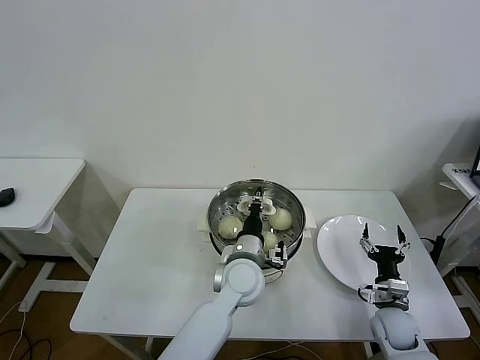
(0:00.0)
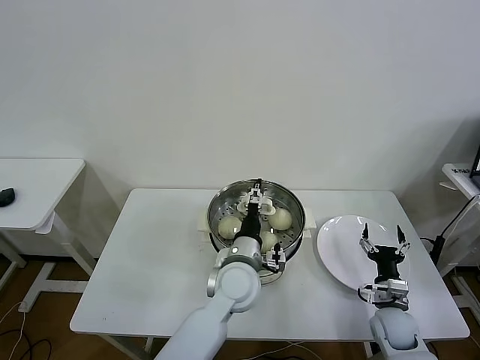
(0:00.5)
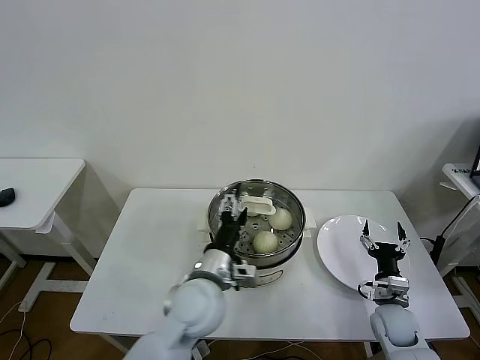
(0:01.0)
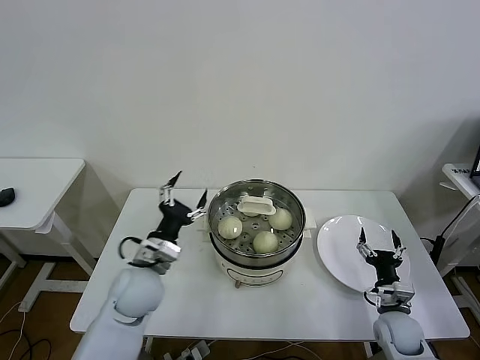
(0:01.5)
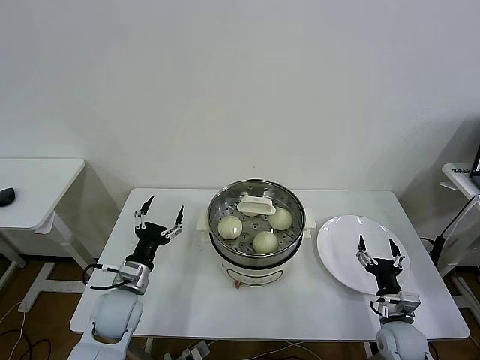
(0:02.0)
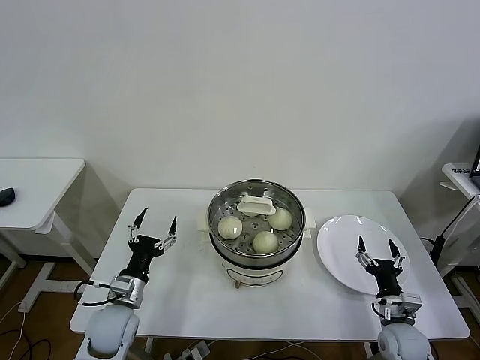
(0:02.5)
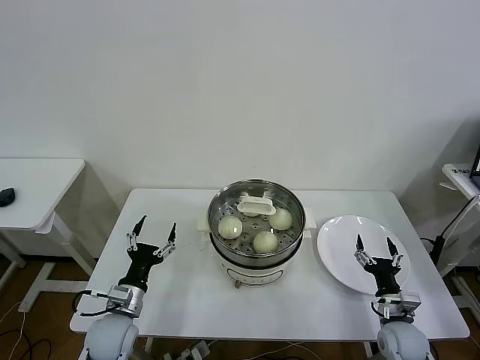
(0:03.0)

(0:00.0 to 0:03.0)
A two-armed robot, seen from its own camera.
Task of the whole recording: take steamed baozi put them in steamer then cover it.
0:00.0 - 0:01.5: The left gripper goes some 20 cm to the left, and opens up.
0:01.5 - 0:03.0: The left gripper goes approximately 15 cm downward, to the left and backward.

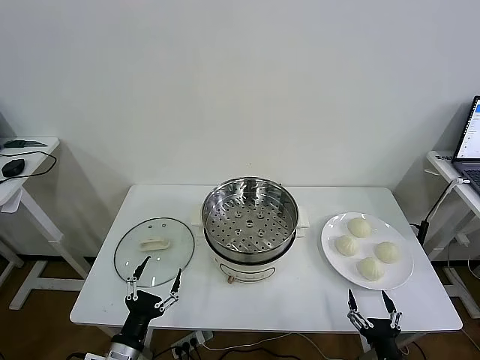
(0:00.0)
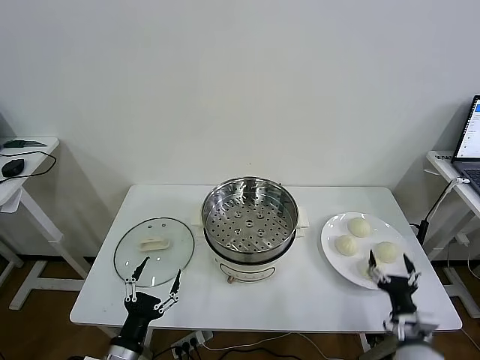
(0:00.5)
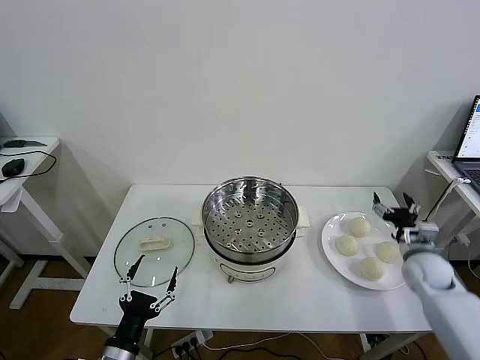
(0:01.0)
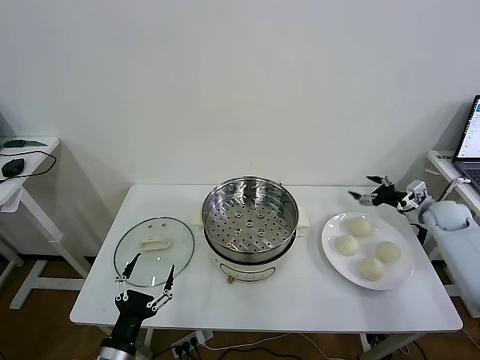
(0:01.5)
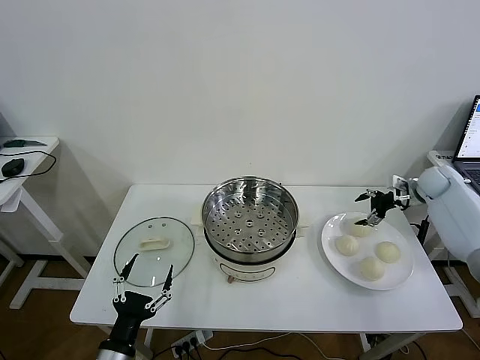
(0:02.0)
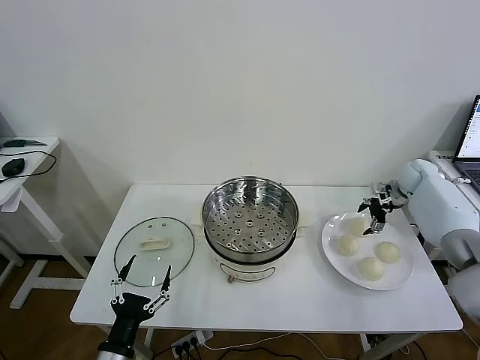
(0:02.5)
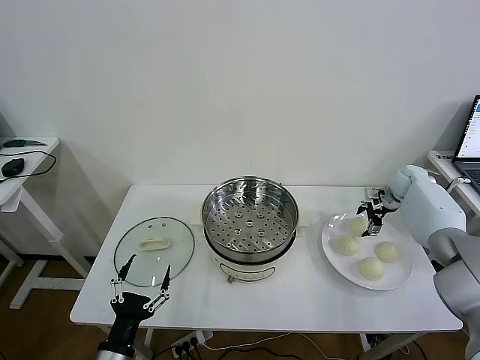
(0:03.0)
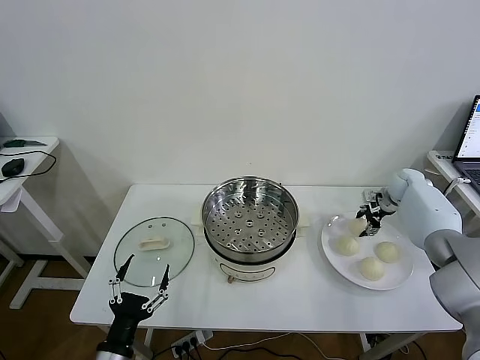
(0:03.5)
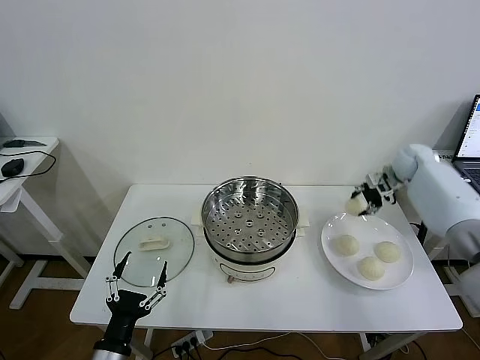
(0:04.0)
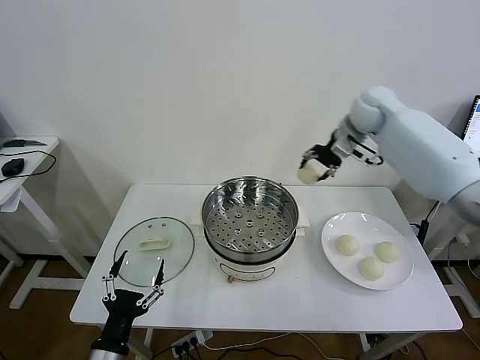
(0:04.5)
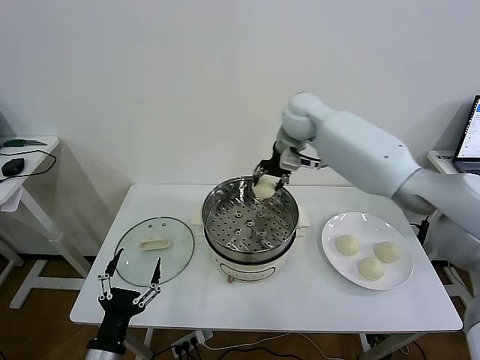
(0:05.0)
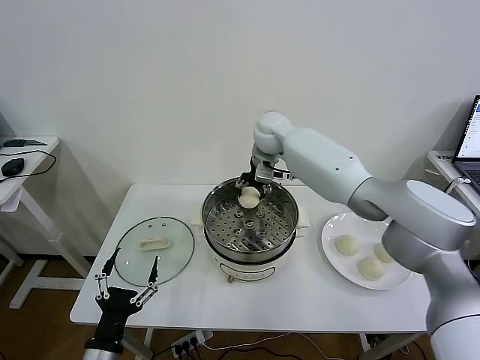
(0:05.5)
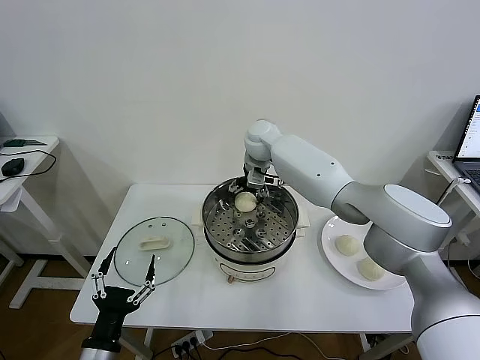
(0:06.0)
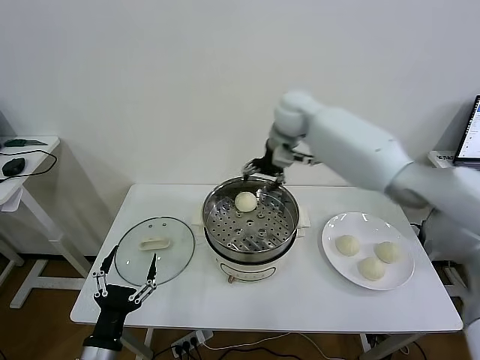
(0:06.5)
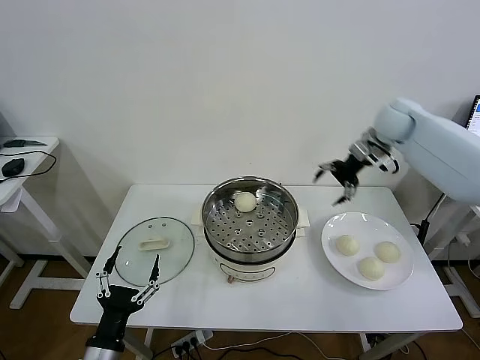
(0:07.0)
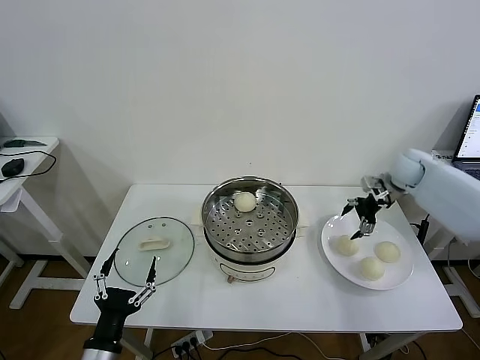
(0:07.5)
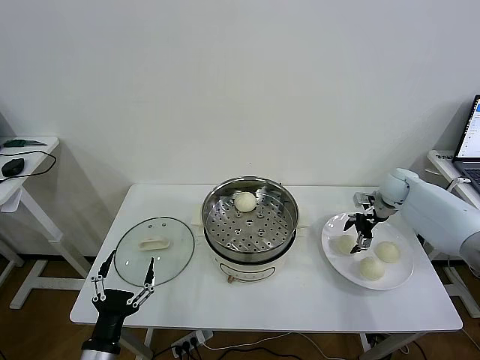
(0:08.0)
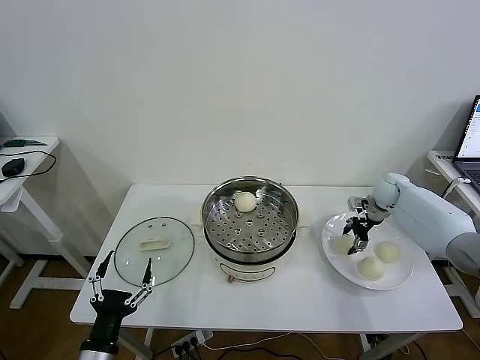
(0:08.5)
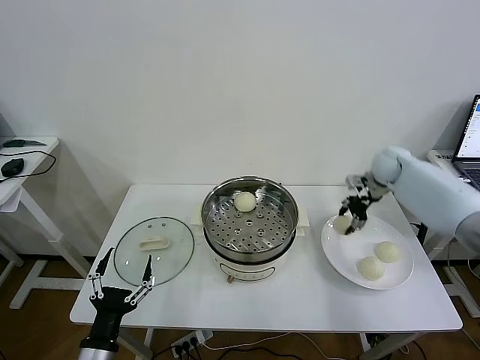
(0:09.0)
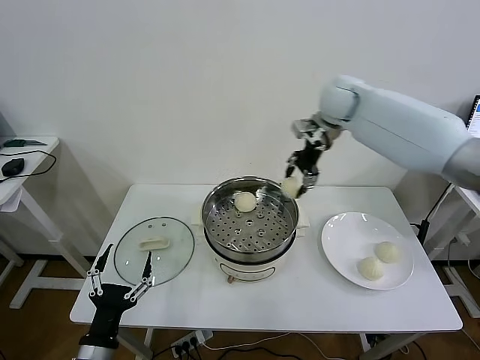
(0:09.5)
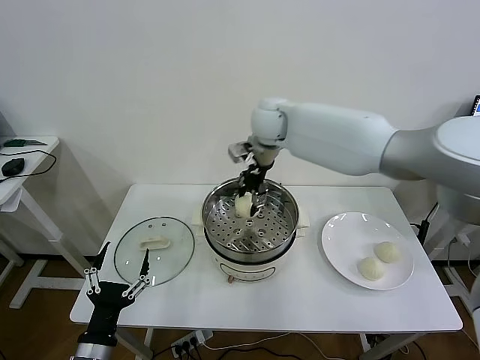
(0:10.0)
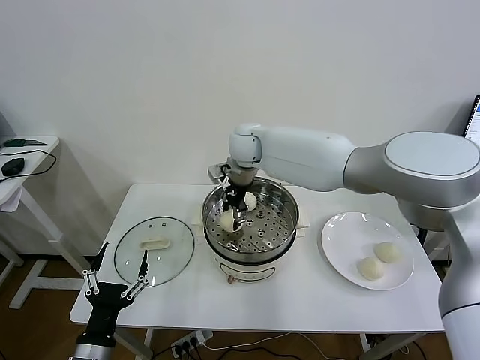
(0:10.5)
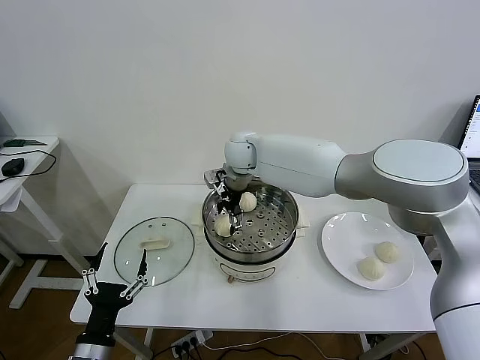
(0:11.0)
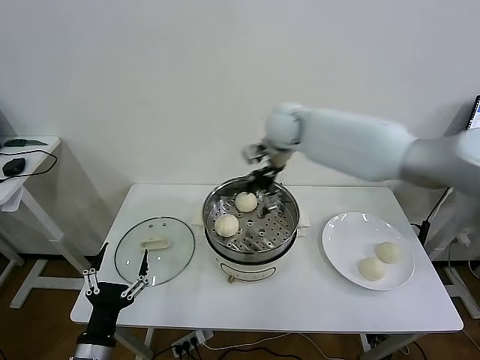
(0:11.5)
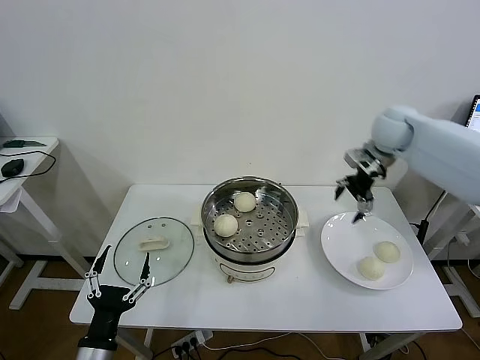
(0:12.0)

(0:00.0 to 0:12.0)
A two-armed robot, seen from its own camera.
Task of the whole recording: take steamed baozi put them in steamer then cover it.
Step, 0:00.0 - 0:03.5: Grasp the baozi in the plate with right gripper.
Step, 0:04.0 - 0:05.5: Place the baozi on the steamer with right gripper.
Step, 0:06.5 - 0:08.5: Grasp the baozi in the plate with right gripper.
Step, 0:09.0 - 0:11.0: Place the baozi on the steamer with right gripper.
0:02.0 - 0:04.0: The right gripper moves to the left, some 5 cm, and closes.
0:04.0 - 0:06.0: The right gripper goes some 40 cm to the left, and opens its fingers.
0:06.0 - 0:08.0: The right gripper moves to the right, approximately 35 cm.
0:08.0 - 0:10.0: The right gripper goes about 40 cm to the left and upward, and closes.
0:10.0 - 0:12.0: The right gripper shifts roughly 25 cm to the right, and opens its fingers.

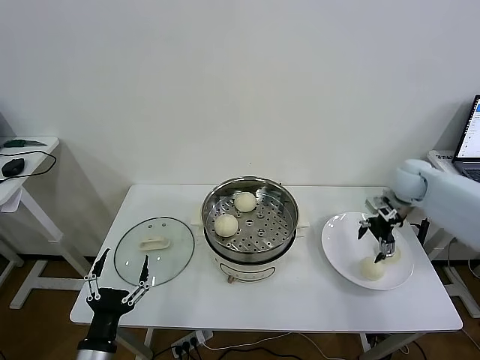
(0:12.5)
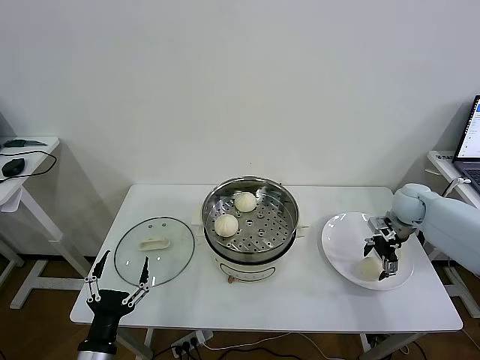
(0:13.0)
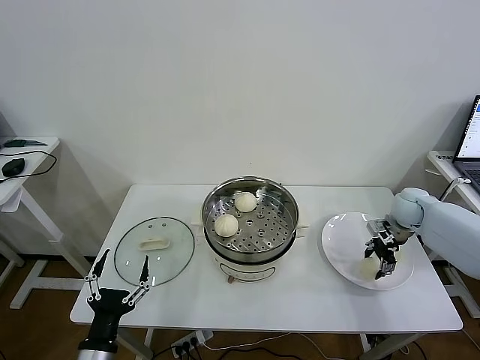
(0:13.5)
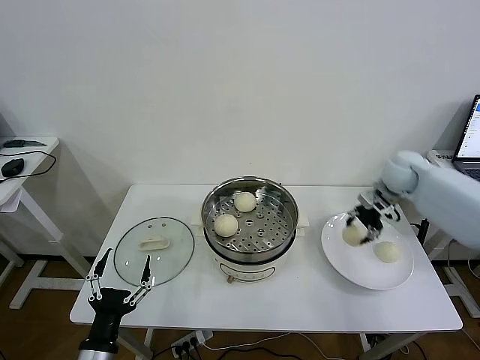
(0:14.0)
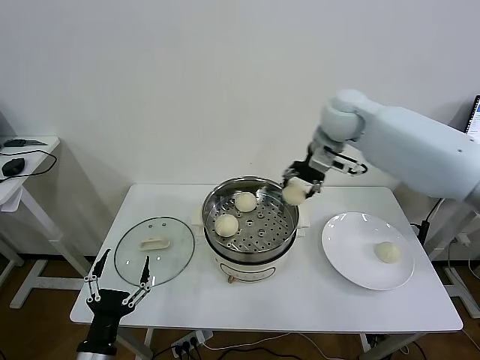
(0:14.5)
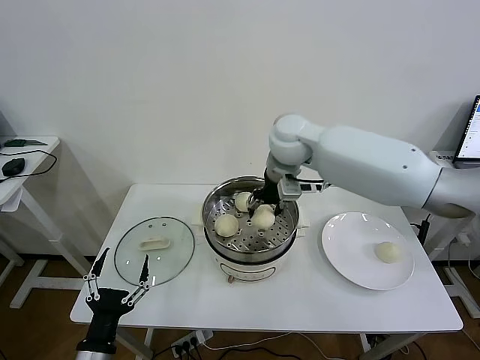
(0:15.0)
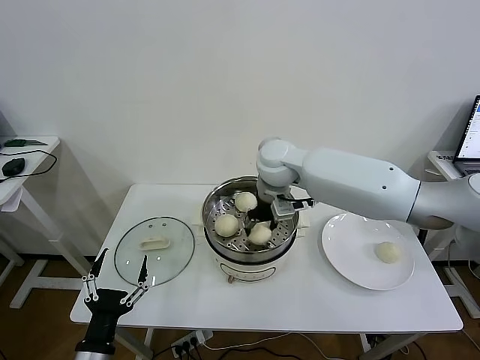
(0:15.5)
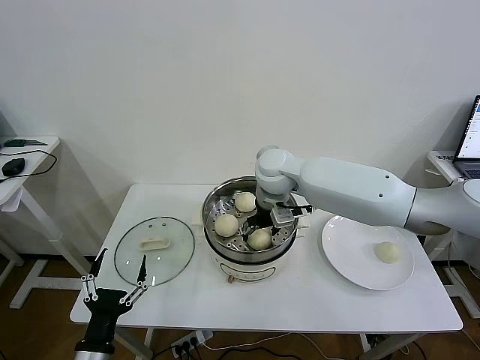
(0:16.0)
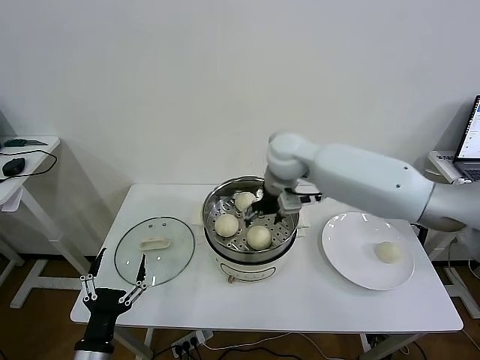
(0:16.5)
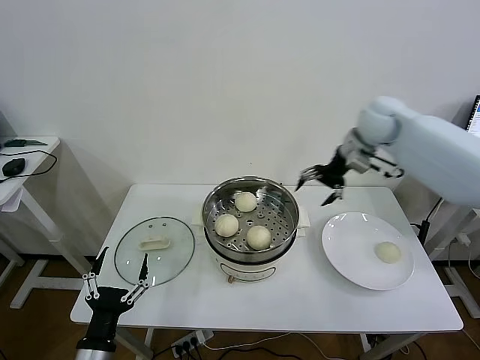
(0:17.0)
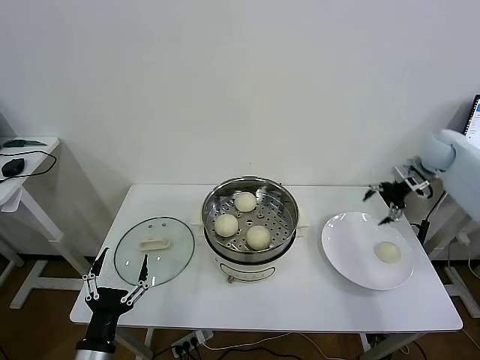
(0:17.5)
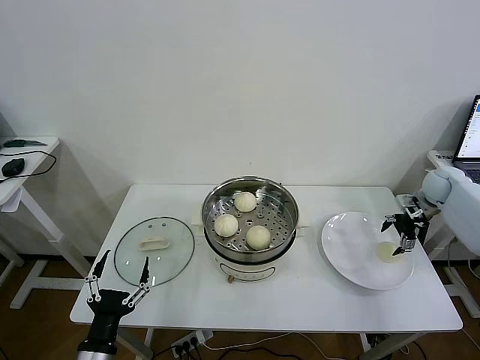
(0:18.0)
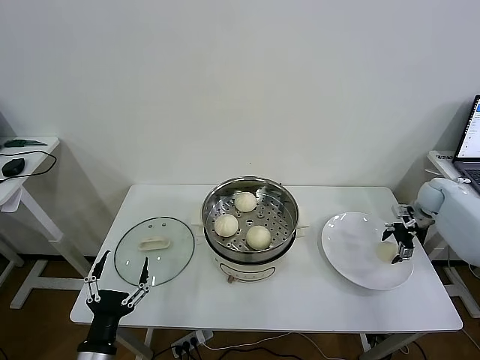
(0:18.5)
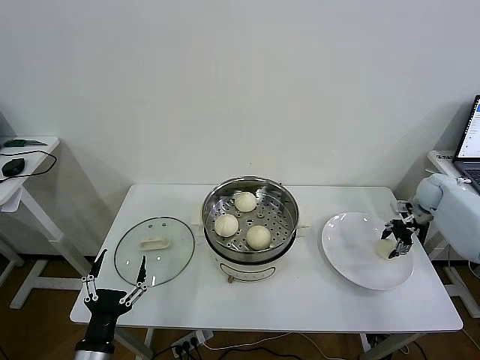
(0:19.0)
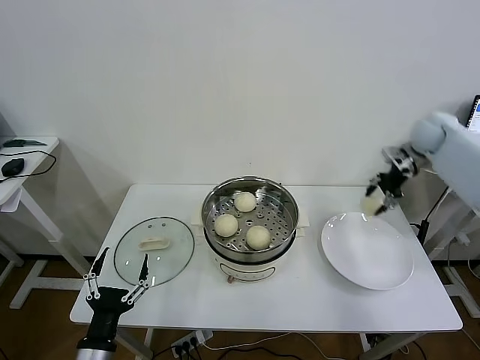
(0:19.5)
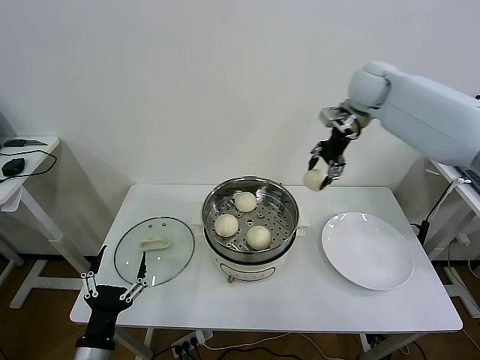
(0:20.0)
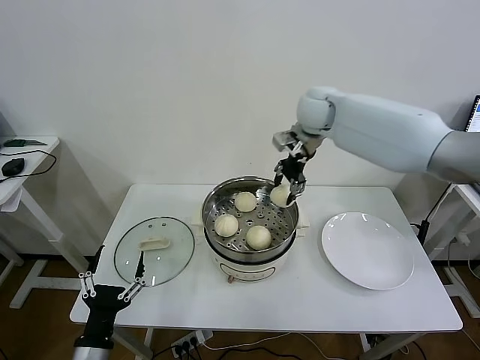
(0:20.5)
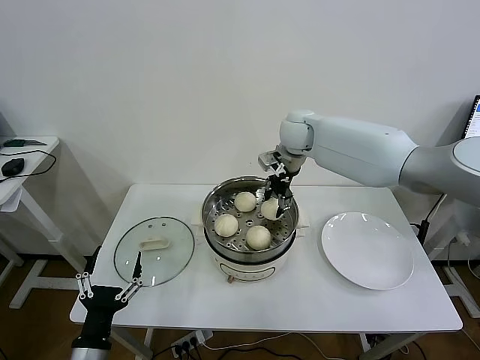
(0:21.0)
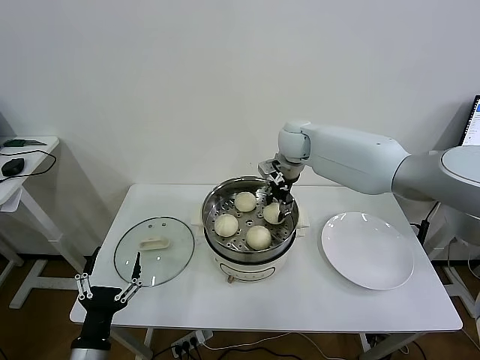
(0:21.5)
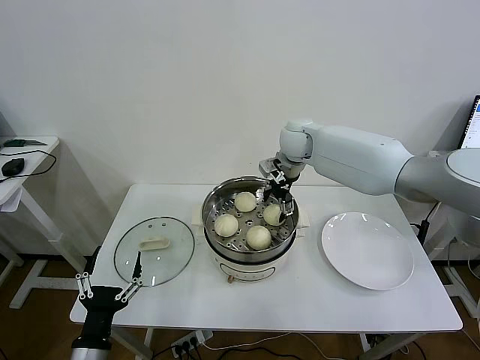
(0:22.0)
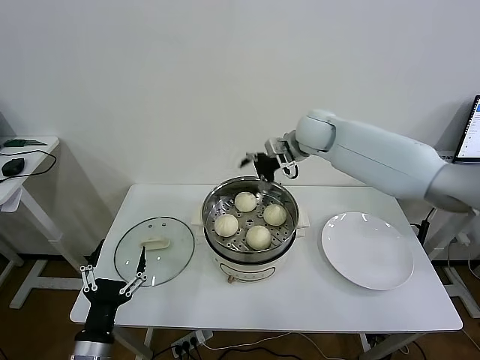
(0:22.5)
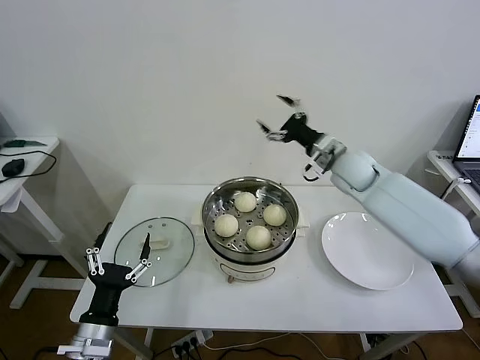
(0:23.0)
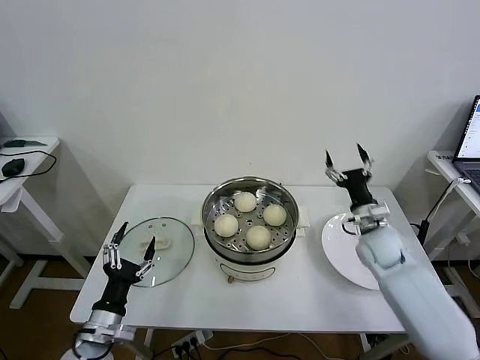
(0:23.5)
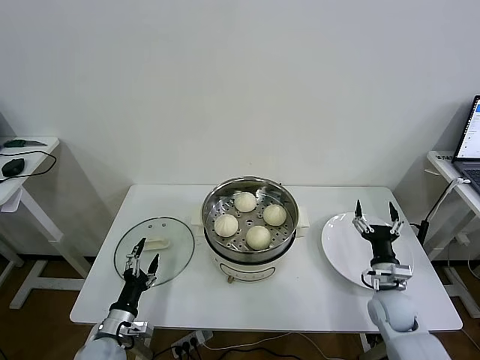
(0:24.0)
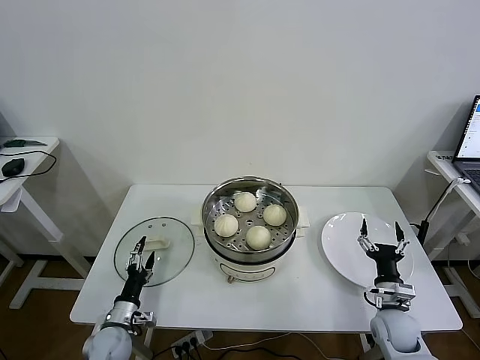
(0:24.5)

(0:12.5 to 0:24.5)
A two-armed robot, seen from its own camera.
Task of the whole recording: take steamed baozi put them in steamer then cover it.
Step, 0:13.5 - 0:16.0: Place the baozi on the steamer with right gripper.
Step, 0:16.5 - 0:18.5: Grasp the baozi in the plate with right gripper.
Step, 0:19.0 - 0:21.5: Place the baozi on the steamer with right gripper.
0:12.5 - 0:14.5: The right gripper travels to the left and upward by about 25 cm, and closes its fingers.
0:14.5 - 0:16.5: The right gripper shifts about 15 cm to the left and downward, and opens.
0:16.5 - 0:18.5: The right gripper heads to the right, covering about 40 cm.
0:18.5 - 0:20.5: The right gripper shifts some 40 cm to the left and upward, and closes up.
0:20.5 - 0:22.5: The right gripper opens up.
0:22.5 - 0:24.5: The right gripper moves downward, backward and to the right, about 50 cm. The left gripper heads downward and forward, covering approximately 20 cm.
